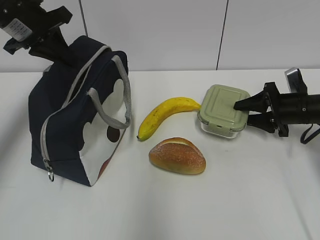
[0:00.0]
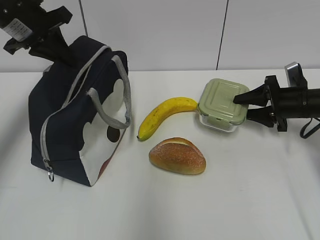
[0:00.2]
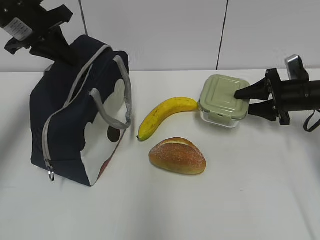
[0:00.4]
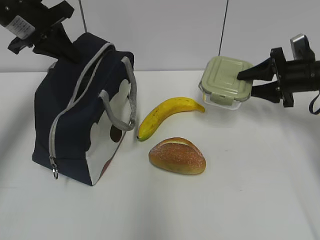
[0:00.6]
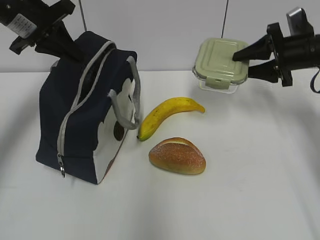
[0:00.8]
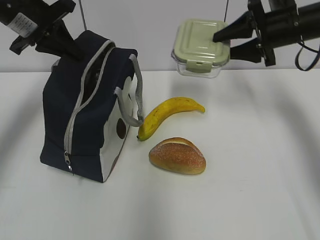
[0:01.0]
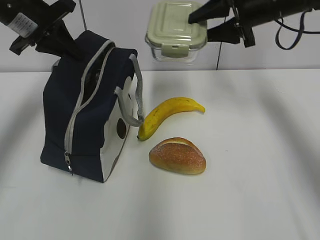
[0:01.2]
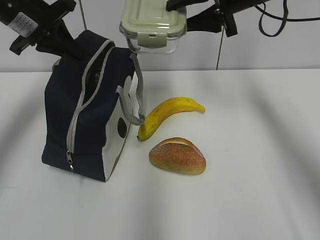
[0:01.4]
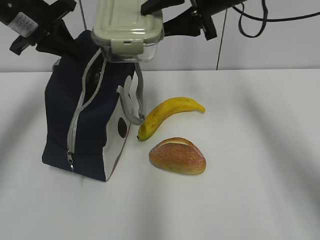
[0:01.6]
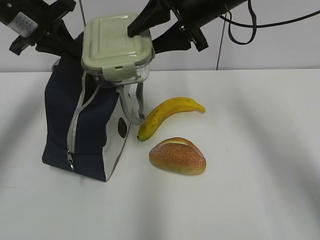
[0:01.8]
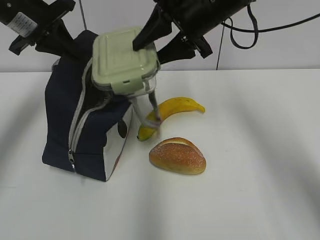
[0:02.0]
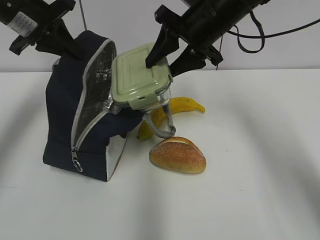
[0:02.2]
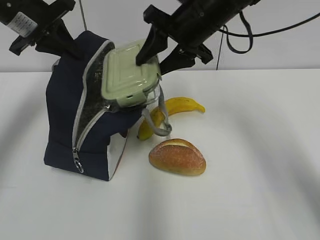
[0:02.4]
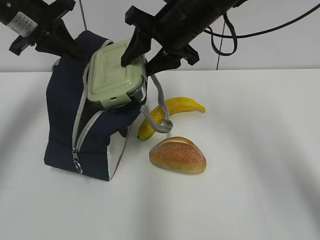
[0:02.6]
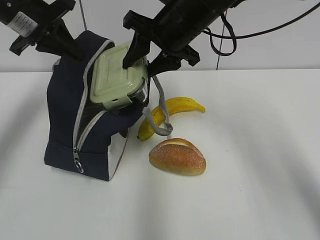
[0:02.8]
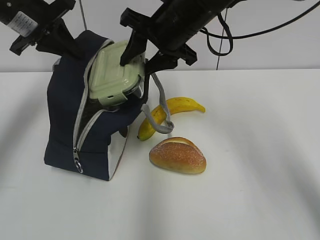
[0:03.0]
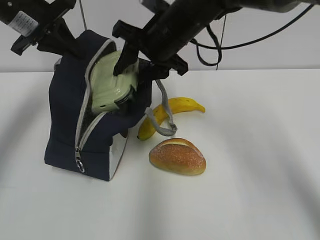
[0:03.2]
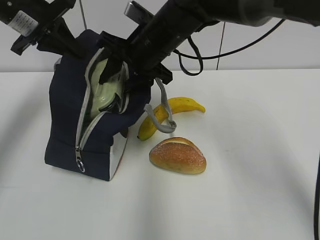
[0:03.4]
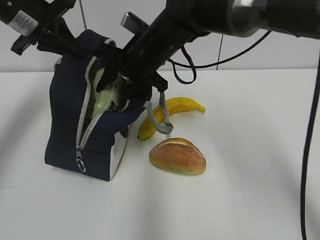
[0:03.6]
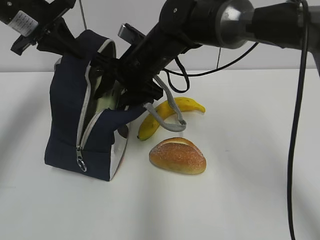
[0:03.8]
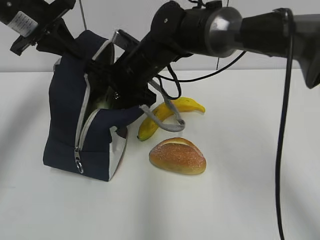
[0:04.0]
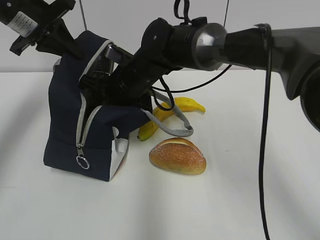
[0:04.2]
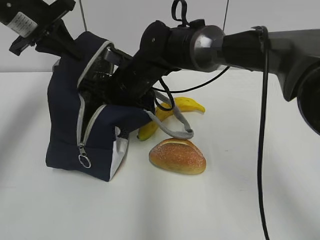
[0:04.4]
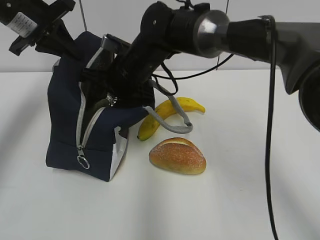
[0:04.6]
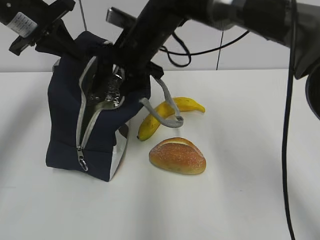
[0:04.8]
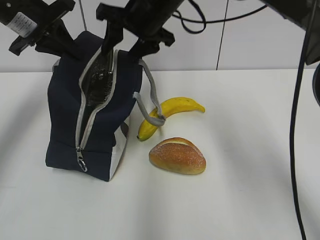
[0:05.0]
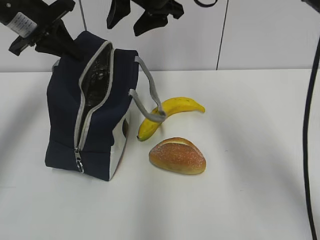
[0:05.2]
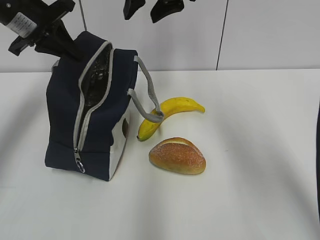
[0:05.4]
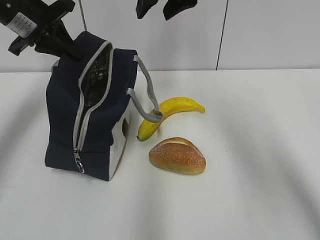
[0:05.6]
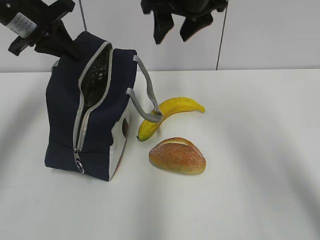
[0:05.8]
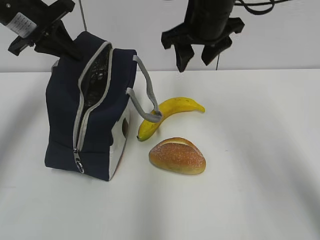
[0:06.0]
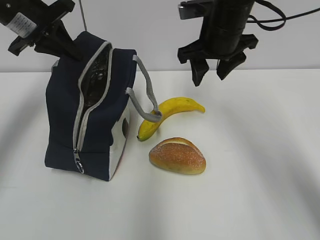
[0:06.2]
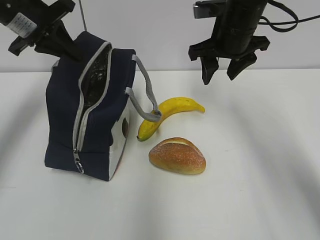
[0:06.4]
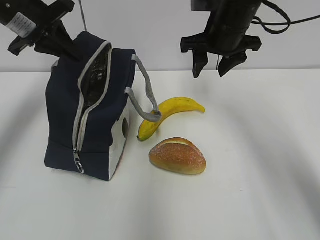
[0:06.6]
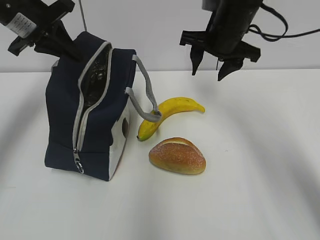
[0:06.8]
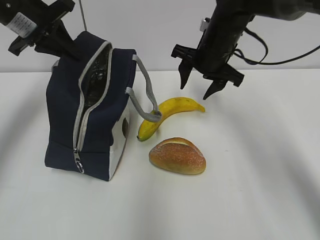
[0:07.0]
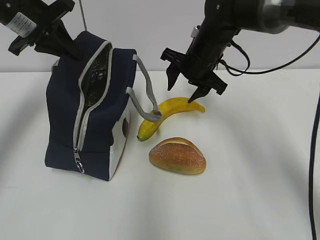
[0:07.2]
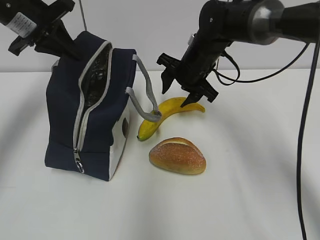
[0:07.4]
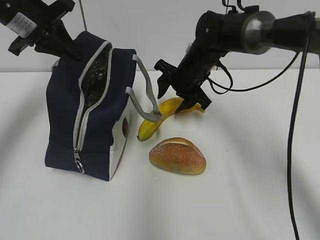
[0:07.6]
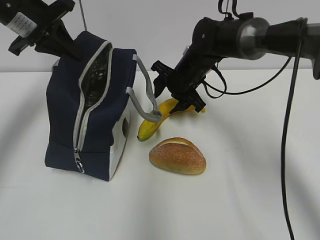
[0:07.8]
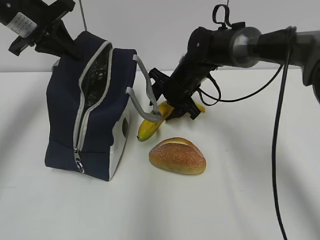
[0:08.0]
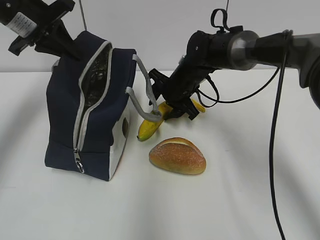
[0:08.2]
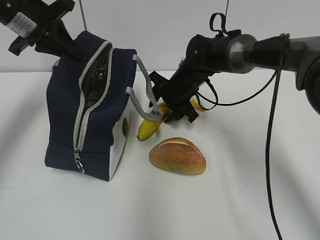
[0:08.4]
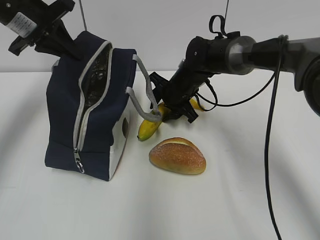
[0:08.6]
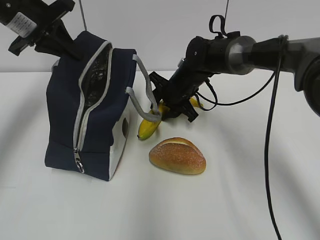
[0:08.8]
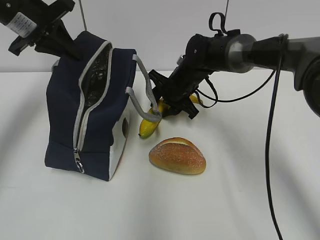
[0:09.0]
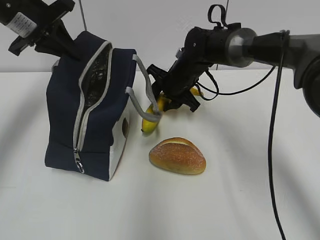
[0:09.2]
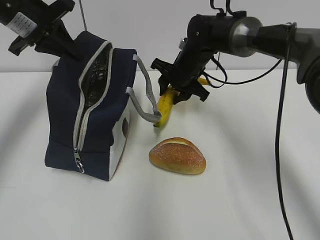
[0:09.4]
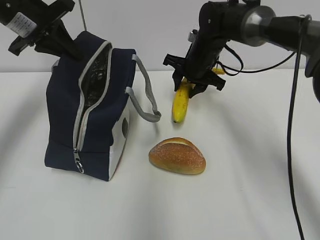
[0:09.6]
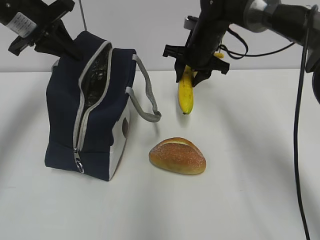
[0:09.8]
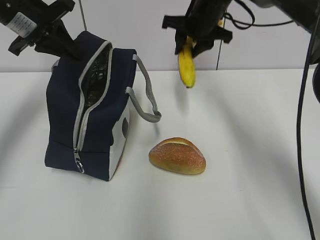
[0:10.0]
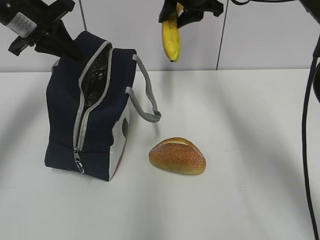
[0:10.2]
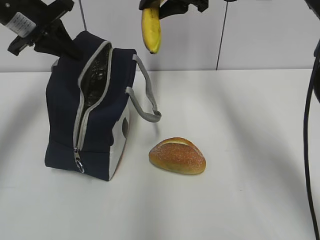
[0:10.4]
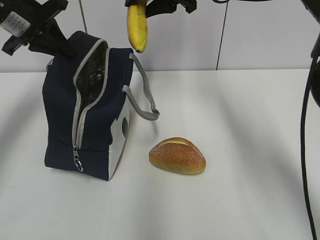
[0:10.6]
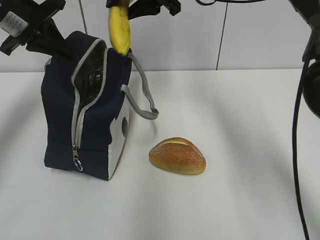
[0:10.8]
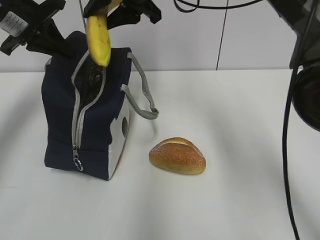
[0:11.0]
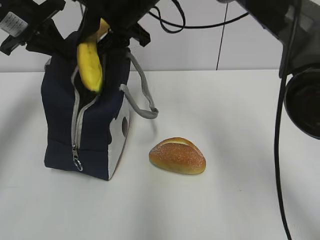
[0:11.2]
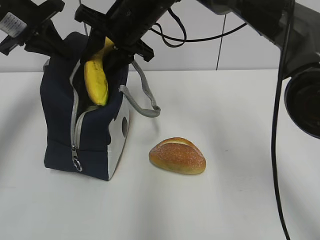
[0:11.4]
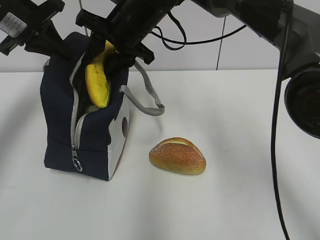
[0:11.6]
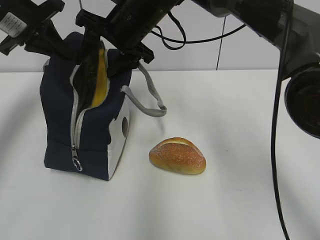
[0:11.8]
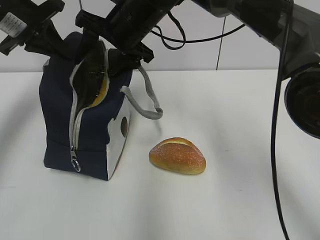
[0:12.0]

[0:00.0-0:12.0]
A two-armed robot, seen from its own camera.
Step, 2.4 to 5.0 s: Place it into the bag with your right hand.
Step, 5.2 to 8.6 s: Grab the banana with your right hand.
0.0 to 1.6 s: The right gripper moves upward and to the left, some 30 cm.
1.6 to 3.0 s: The right gripper goes roughly 5 cm to the left.
3.0 to 4.4 s: The right gripper goes roughly 15 cm downward and to the left.
4.4 to 6.0 s: The right gripper goes some 20 cm to the right and upward.
6.0 to 7.6 s: The right gripper heads downward and forward, covering approximately 15 cm.
7.6 to 9.0 s: The grippers stay close to where they were, moving slightly.
9.0 to 10.4 s: The right gripper heads upward, covering roughly 20 cm.
10.4 to 12.0 s: The right gripper travels to the left and downward by some 10 cm, and opens its fingers.

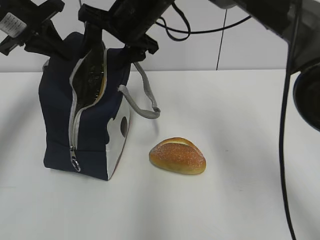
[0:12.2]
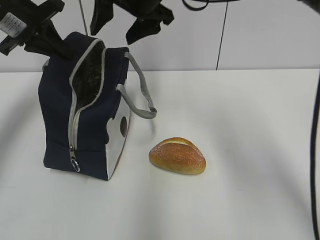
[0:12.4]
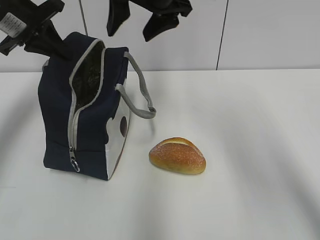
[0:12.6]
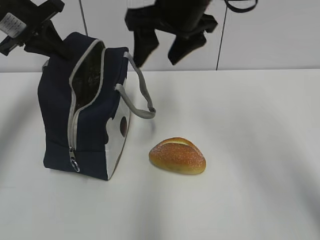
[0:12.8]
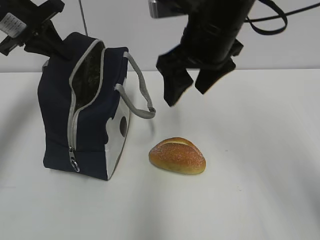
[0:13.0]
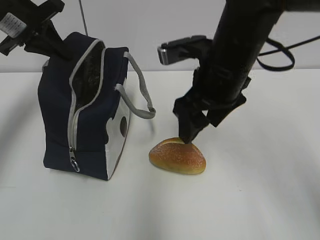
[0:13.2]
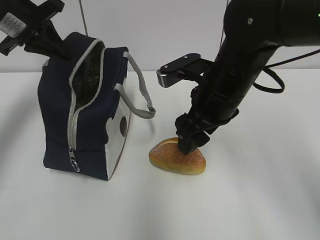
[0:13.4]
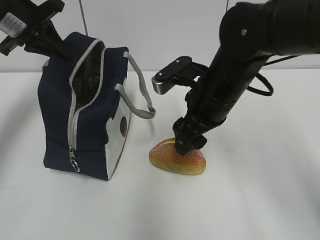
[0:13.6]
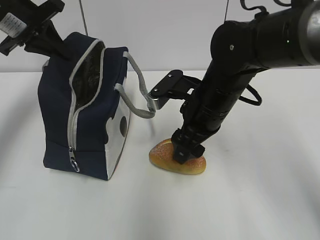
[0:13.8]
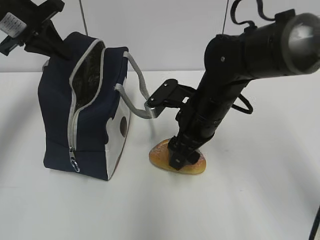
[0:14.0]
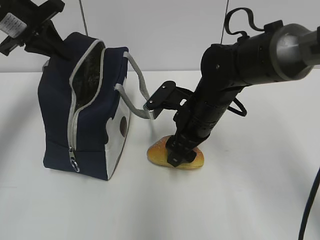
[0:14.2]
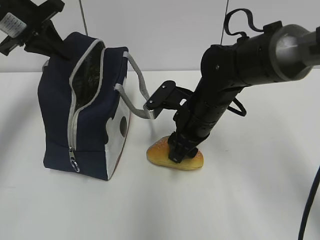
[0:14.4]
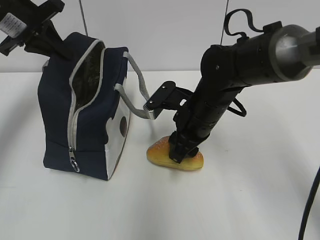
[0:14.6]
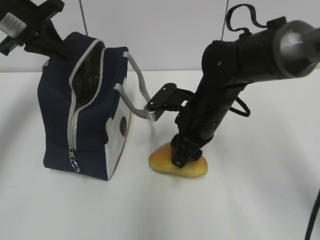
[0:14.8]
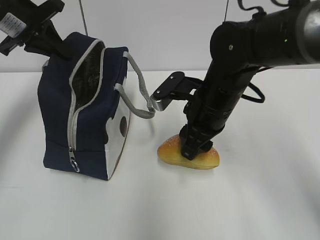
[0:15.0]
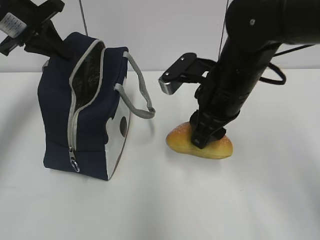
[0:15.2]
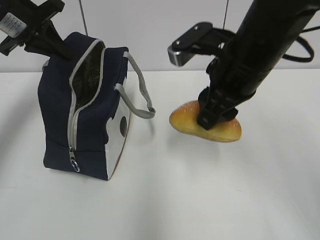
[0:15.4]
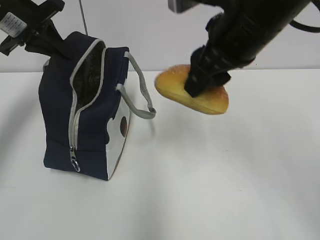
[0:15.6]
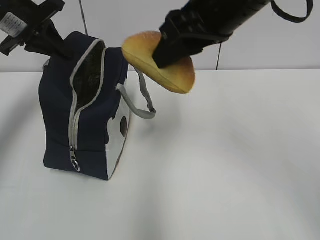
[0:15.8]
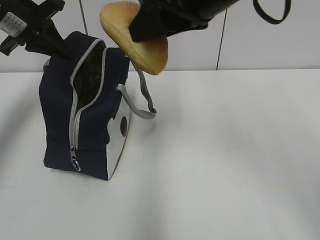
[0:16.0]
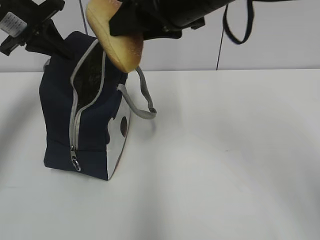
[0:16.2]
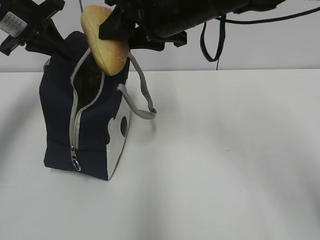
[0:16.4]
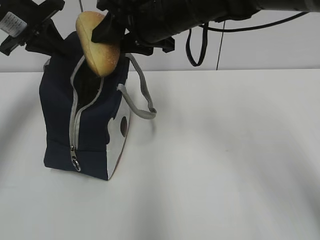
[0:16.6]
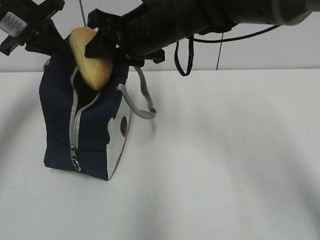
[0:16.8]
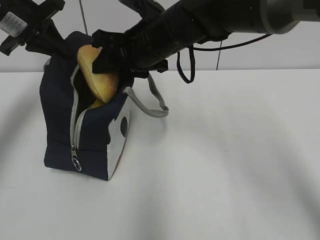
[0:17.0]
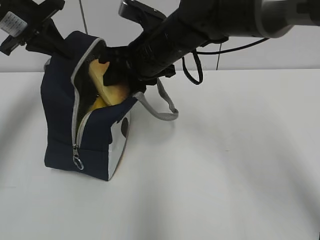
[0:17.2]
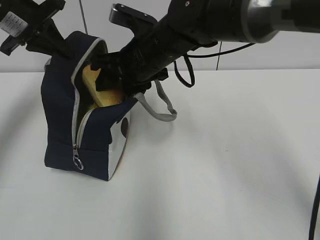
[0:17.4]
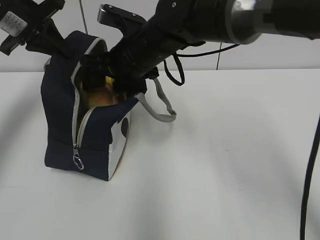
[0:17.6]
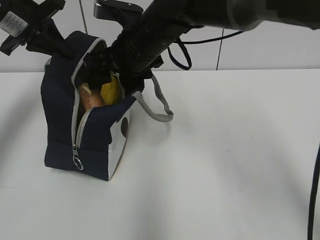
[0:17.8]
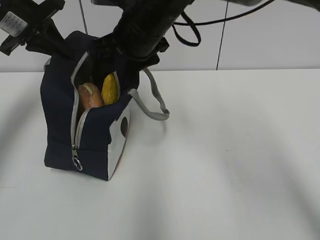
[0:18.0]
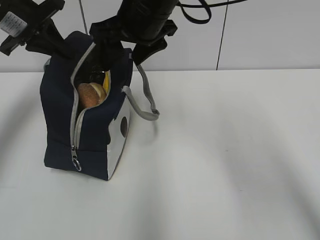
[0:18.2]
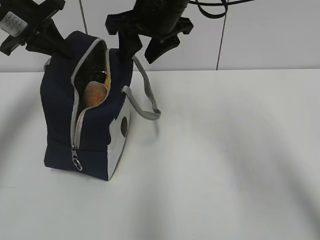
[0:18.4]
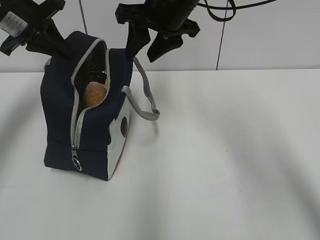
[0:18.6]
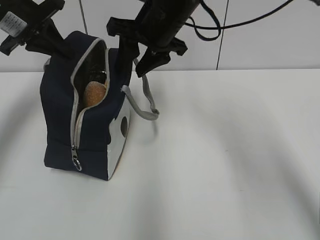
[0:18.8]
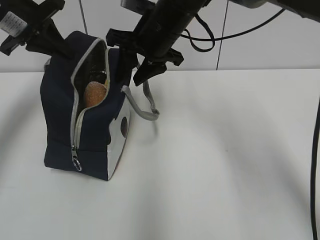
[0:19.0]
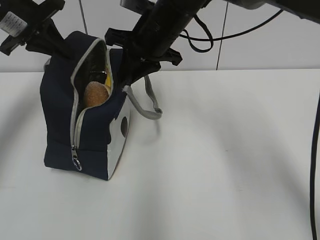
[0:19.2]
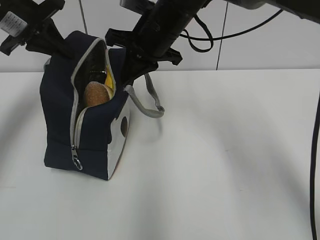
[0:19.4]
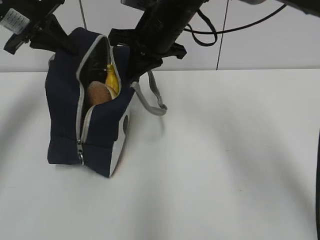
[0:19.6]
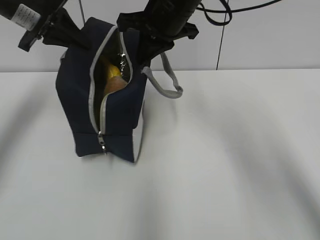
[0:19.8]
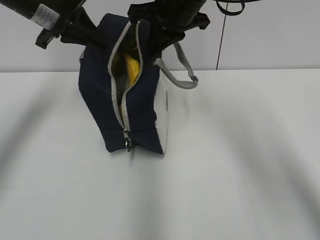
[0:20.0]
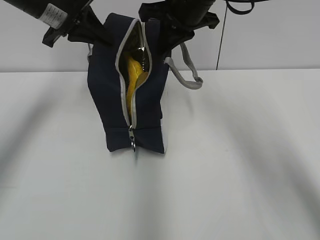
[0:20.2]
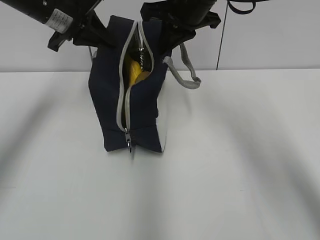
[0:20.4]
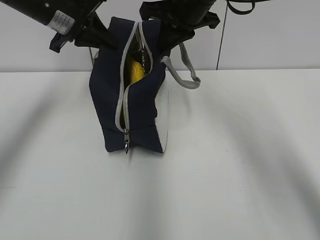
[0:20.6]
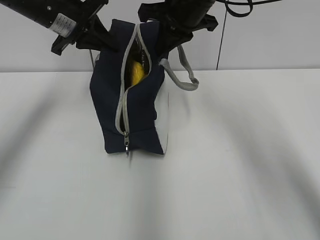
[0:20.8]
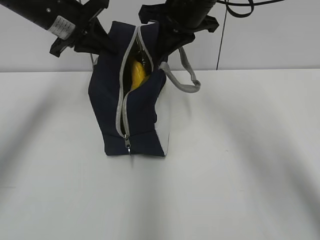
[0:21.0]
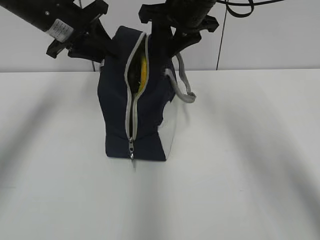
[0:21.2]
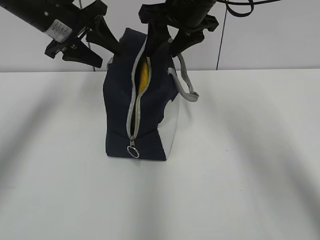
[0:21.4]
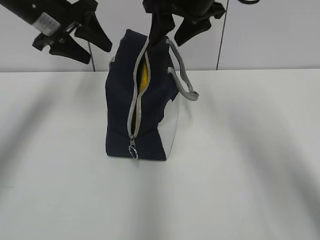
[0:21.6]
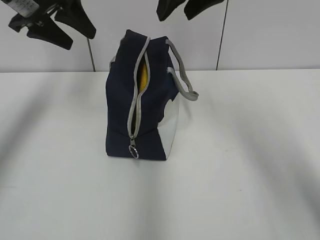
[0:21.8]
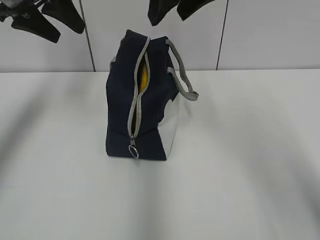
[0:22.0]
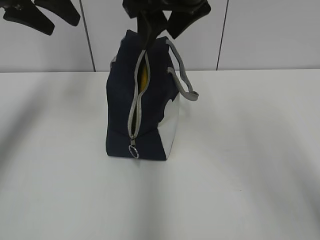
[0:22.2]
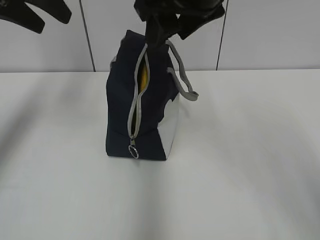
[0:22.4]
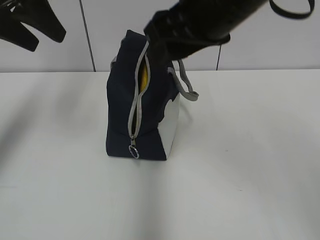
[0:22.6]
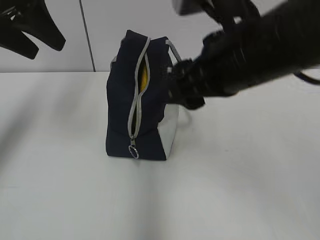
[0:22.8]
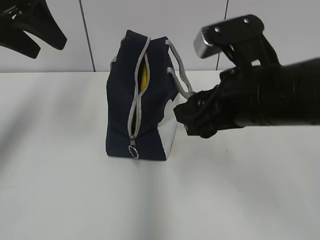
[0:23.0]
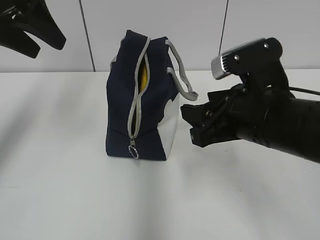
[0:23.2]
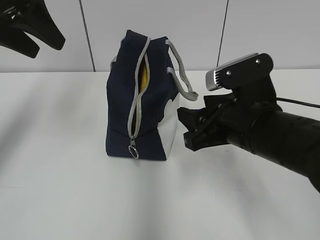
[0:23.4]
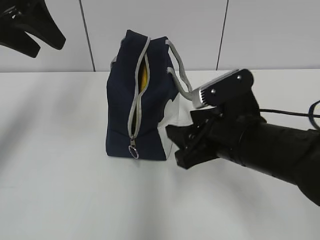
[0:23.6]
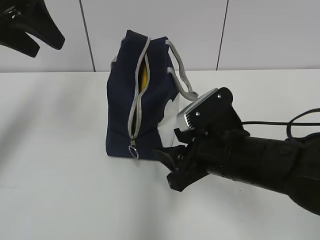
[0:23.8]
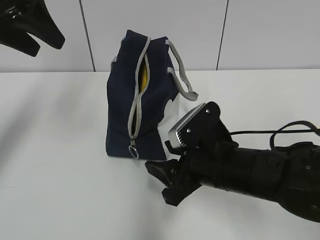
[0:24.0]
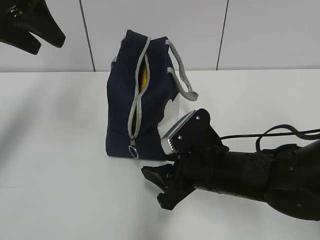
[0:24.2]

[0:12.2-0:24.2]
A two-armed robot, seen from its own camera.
Step, 12.8 to 14.4 s: Grab the bread with your right hand.
Step, 14.6 to 18.2 s: Place it into the bag with your right hand.
Step, 18.6 to 19.4 s: Grab the lunch bag with your right hand.
Step, 19.6 to 19.8 s: Move the lunch bag to the left.
Step, 20.0 to 21.0 s: Move the lunch bag to the right.
12.2 to 13.8 s: The right gripper shifts roughly 15 cm backward, downward and to the right.
13.8 to 15.2 s: The right gripper closes its fingers.
15.2 to 16.6 s: The right gripper travels upward, to the left and forward by approximately 10 cm.
16.6 to 18.2 s: The right gripper opens its fingers.
18.2 to 19.8 s: The right gripper closes.
19.8 to 21.2 s: The left gripper changes place by about 5 cm, and opens its fingers, while the right gripper opens up.
21.2 to 22.6 s: The right gripper shifts some 15 cm backward; the left gripper travels backward and upward by about 10 cm, and opens.
22.6 to 24.2 s: The right gripper goes approximately 25 cm downward.
